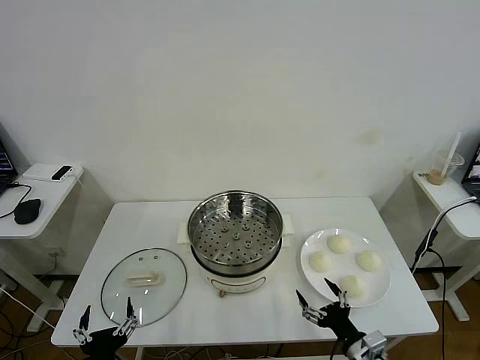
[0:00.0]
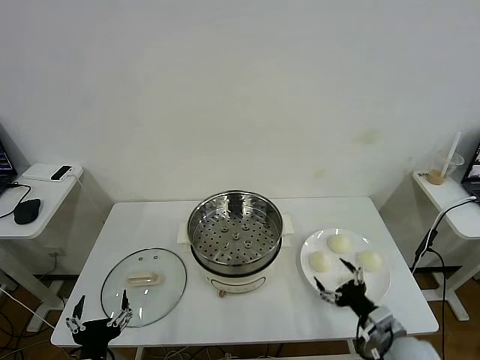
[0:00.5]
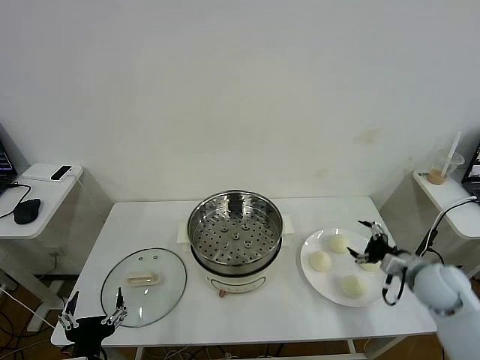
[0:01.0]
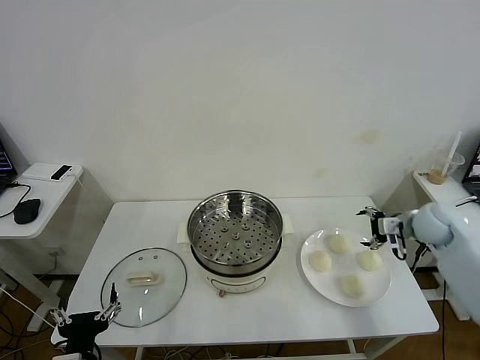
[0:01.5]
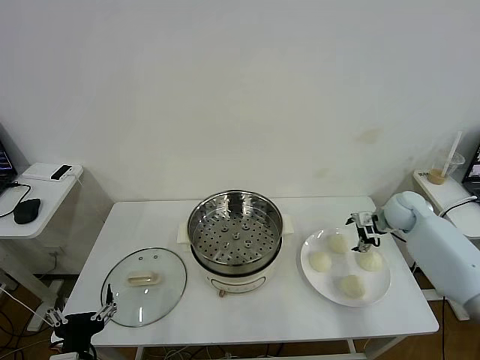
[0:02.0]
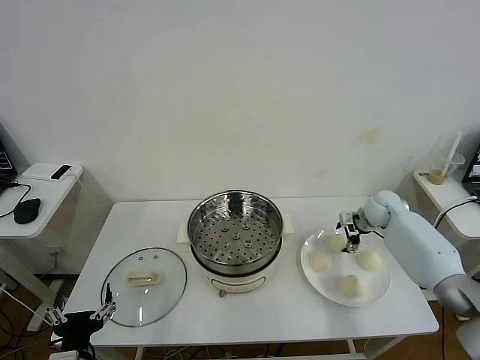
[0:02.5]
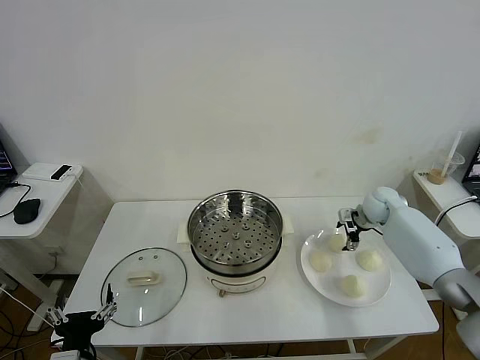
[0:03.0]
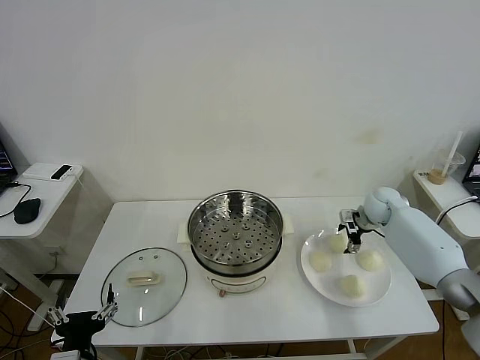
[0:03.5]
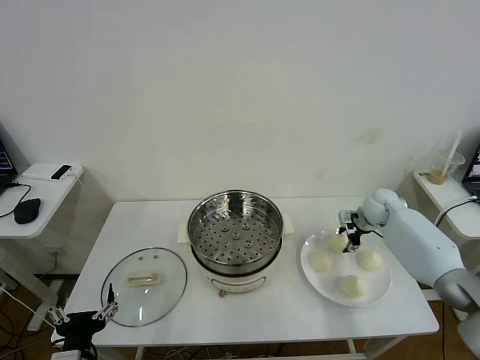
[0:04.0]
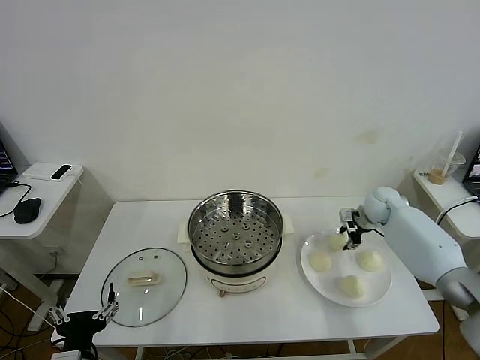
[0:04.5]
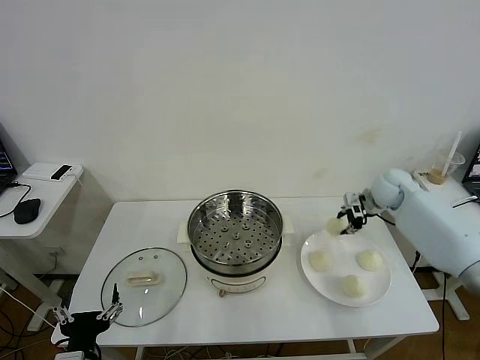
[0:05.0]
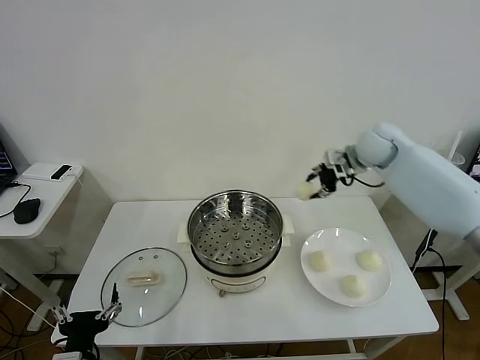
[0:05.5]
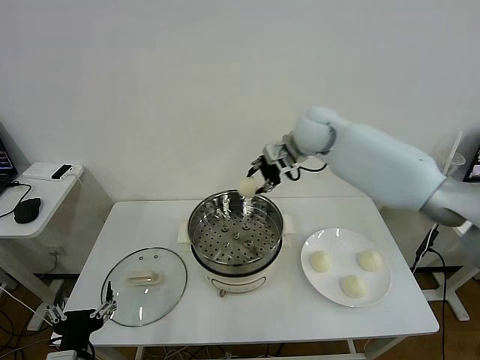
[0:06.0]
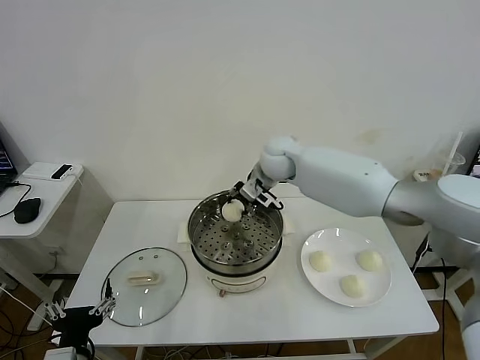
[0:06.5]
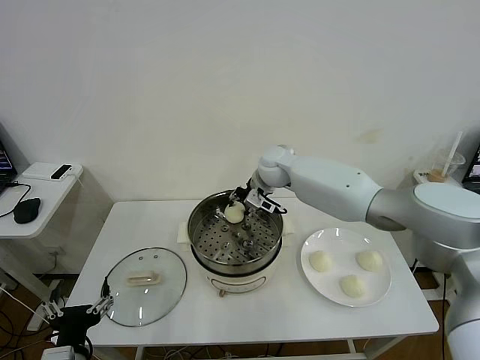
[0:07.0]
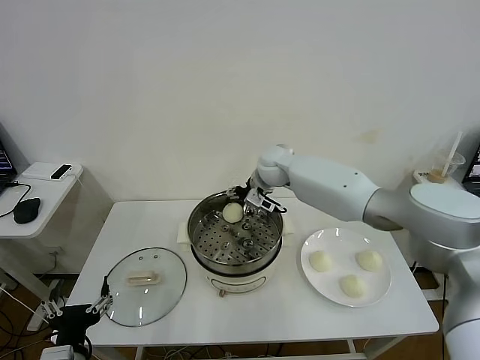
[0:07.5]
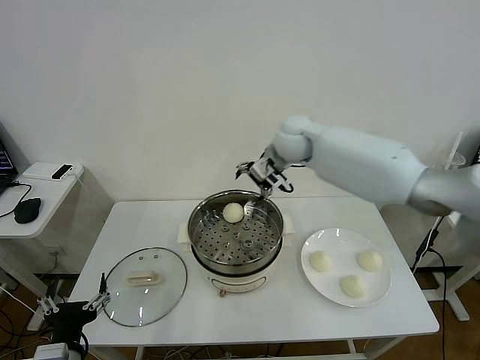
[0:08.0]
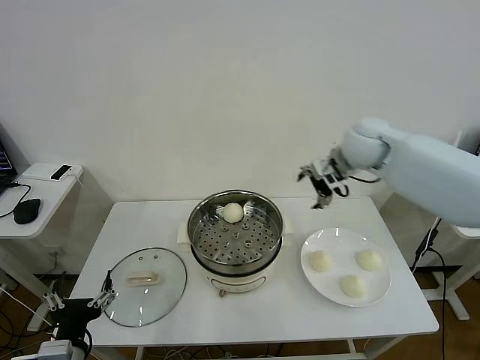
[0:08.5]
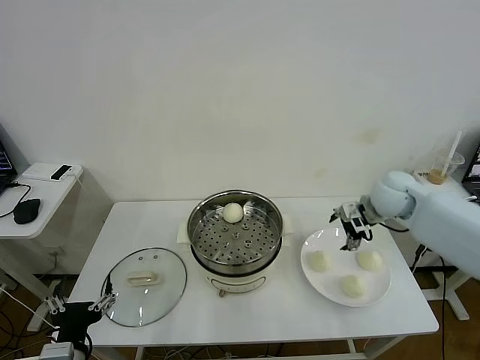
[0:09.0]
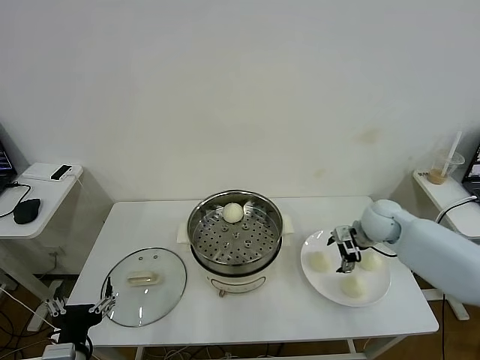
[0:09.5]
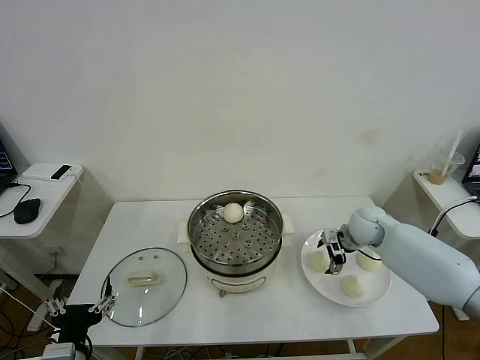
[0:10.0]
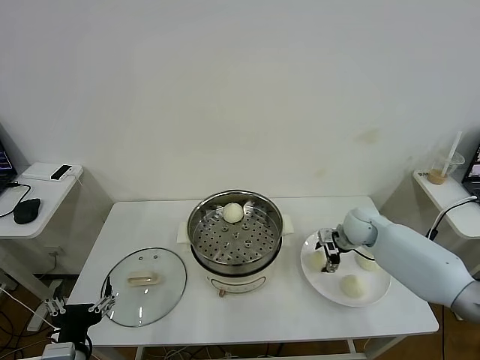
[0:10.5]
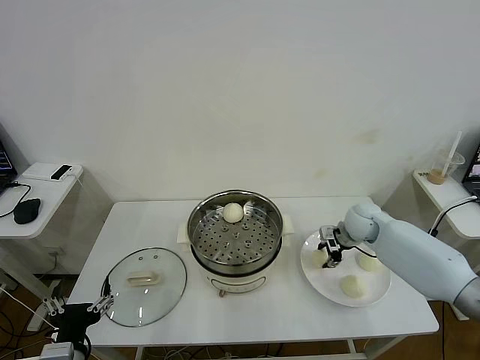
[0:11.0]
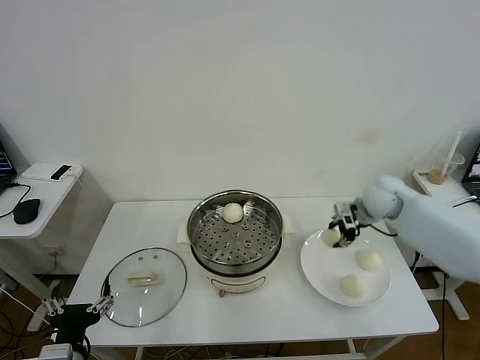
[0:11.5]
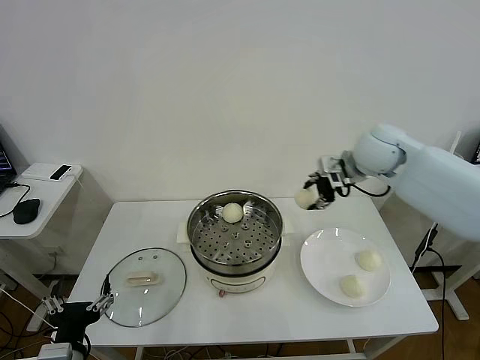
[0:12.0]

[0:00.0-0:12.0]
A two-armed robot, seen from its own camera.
Task of the whole recording: take steamed baozi put them in steamer then cover it.
Step, 0.0 to 4.0 s: Grasp the baozi in the plate with right gripper.
Step, 4.5 to 7.5 s: Place the baozi on the steamer with right gripper.
Step, 8.0 to 10.5 s: Grasp the baozi in the plate with right gripper.
2.0 to 4.0 s: The right gripper closes.
4.0 to 6.0 s: The right gripper is displaced to the left and upward by roughly 35 cm, and closes.
6.0 to 8.0 s: The right gripper travels downward and back again, roughly 10 cm each way, and opens.
8.0 to 10.0 s: The right gripper goes some 30 cm downward and to the right.
10.0 to 12.0 s: The right gripper heads upward, covering roughly 25 cm, and closes.

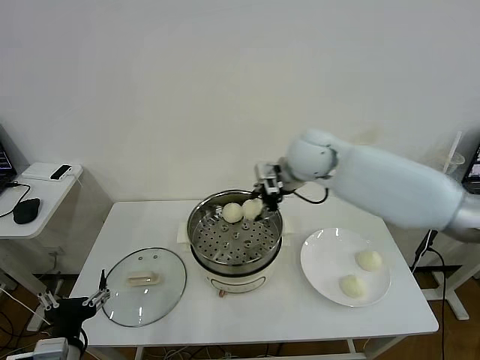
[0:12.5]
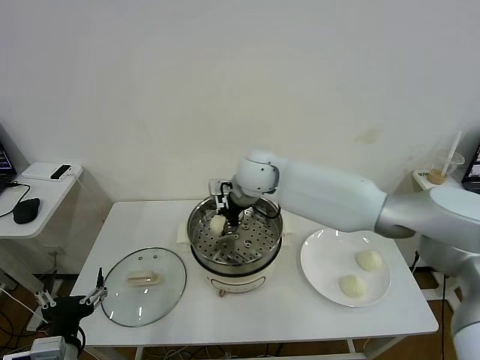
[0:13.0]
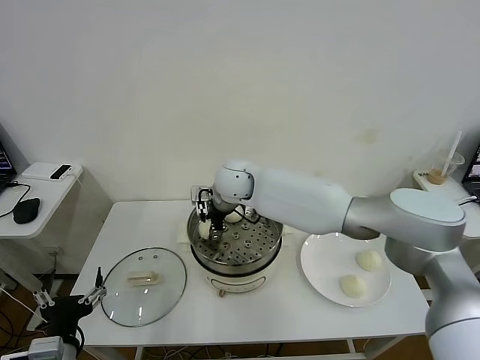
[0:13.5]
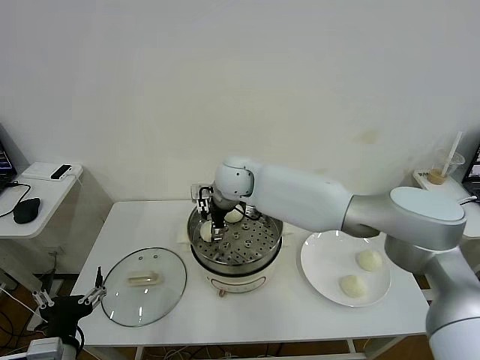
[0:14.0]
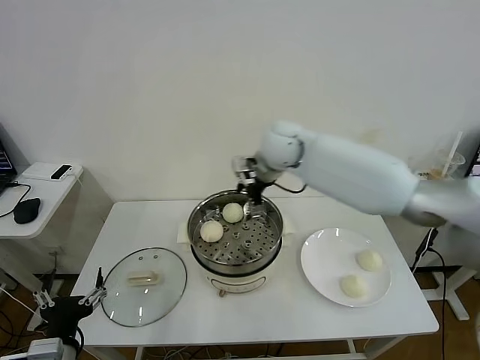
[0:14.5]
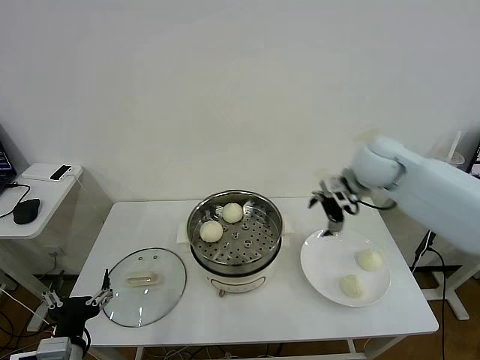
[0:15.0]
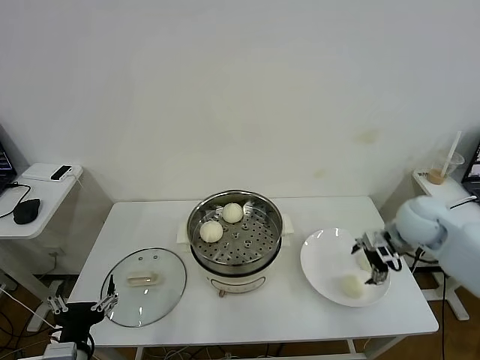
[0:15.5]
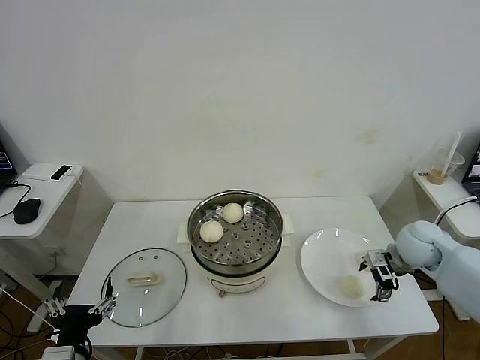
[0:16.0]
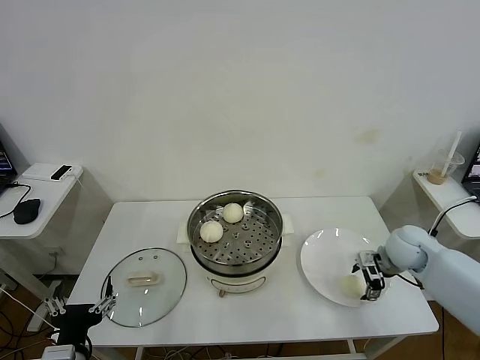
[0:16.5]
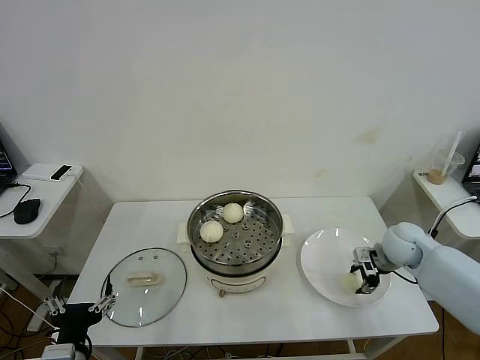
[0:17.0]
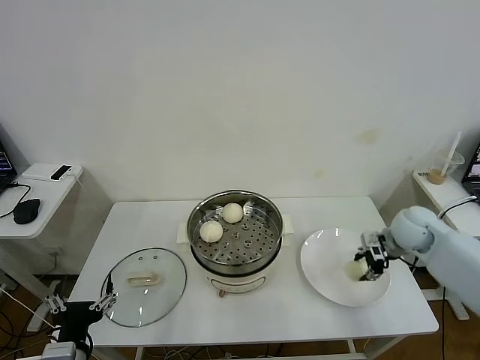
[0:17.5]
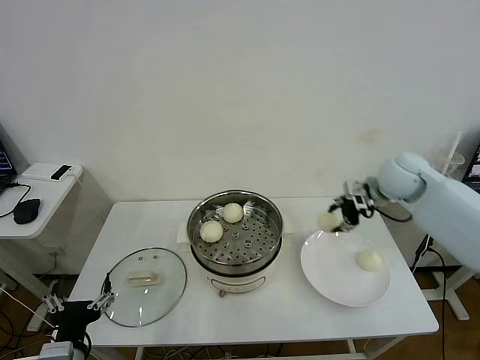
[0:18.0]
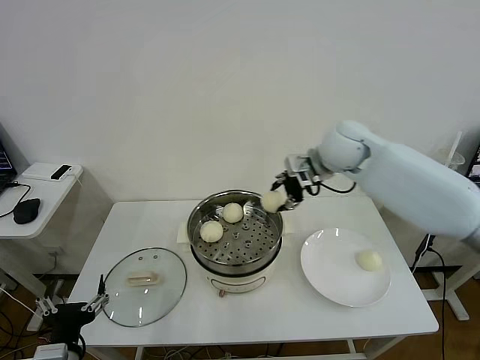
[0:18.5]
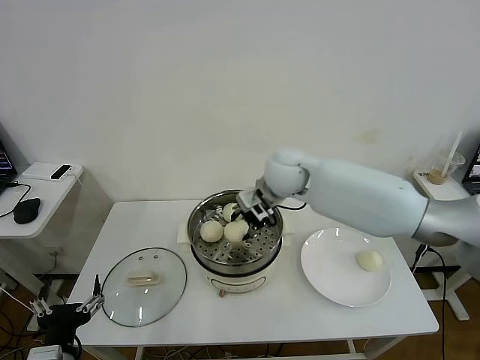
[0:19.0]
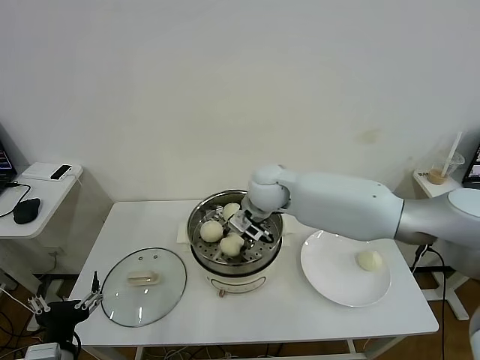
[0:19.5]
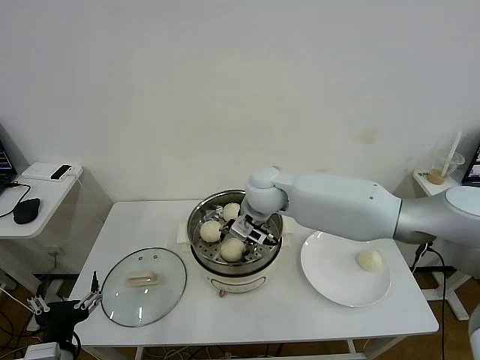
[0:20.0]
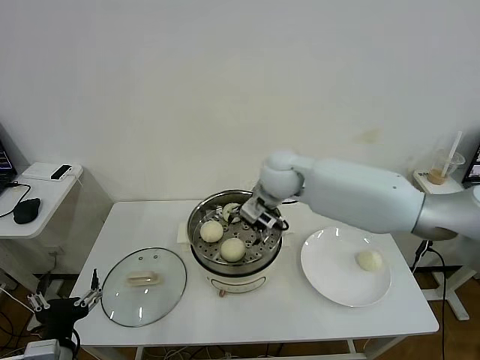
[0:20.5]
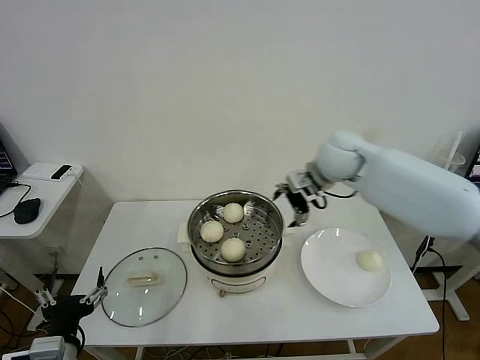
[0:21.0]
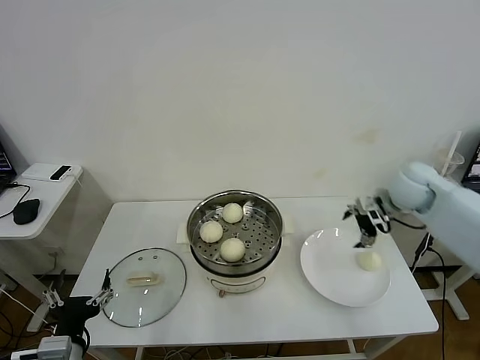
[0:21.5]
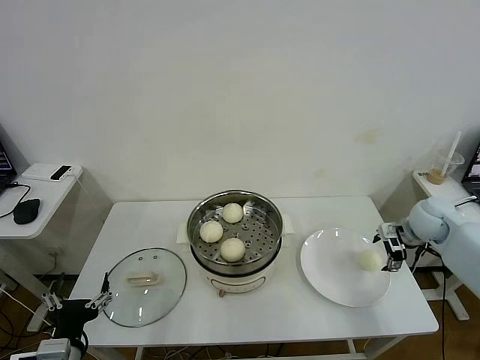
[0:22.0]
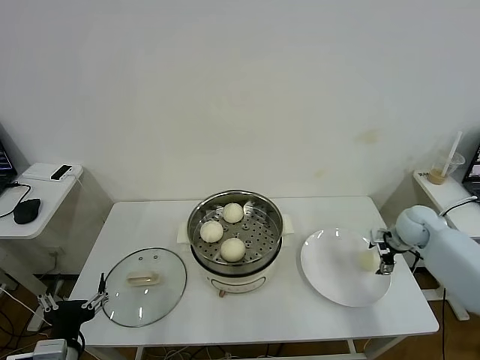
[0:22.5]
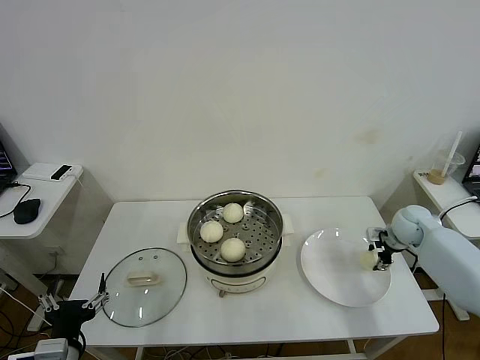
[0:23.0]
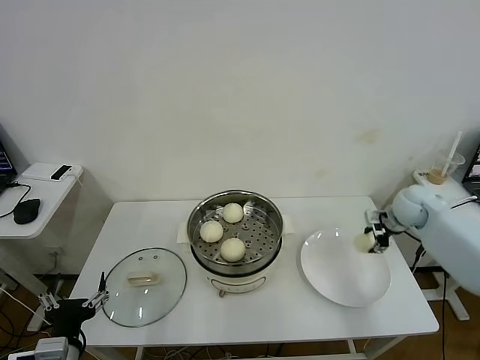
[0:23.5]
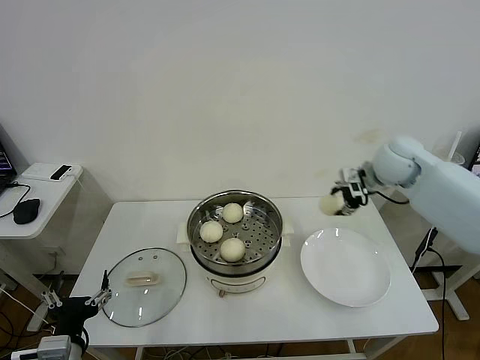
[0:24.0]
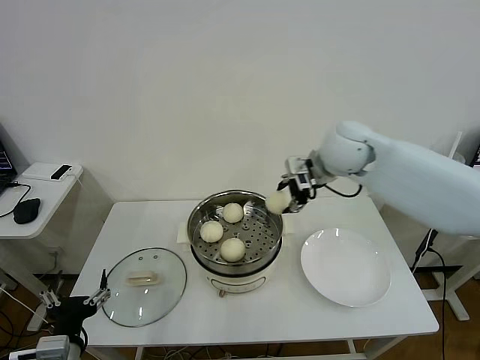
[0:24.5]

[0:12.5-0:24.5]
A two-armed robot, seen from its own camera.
Task of the whole recording: take steamed baozi put them in steamer then cover it.
Step, 14.5 to 17.0 s: Grasp the baozi in the plate with right gripper.
Step, 17.5 to 20.0 s: Place the baozi on the steamer with right gripper.
Step, 20.5 to 23.0 s: Grasp the baozi in the plate with right gripper.
12.5 to 14.5 s: The right gripper goes to the left and returns, approximately 15 cm each way, and opens up.
14.5 to 16.5 s: The right gripper travels to the right, downward and backward by roughly 35 cm.
16.5 to 18.5 s: The right gripper heads upward, to the left and forward, covering roughly 30 cm, and closes.
18.5 to 20.5 s: The right gripper goes about 10 cm to the left and downward, and opens up.
20.5 to 22.5 s: The right gripper goes approximately 40 cm to the right and downward.
22.5 to 24.5 s: The right gripper goes about 35 cm to the left and upward, and closes its fingers.

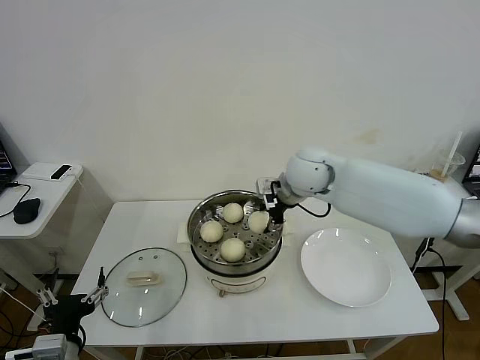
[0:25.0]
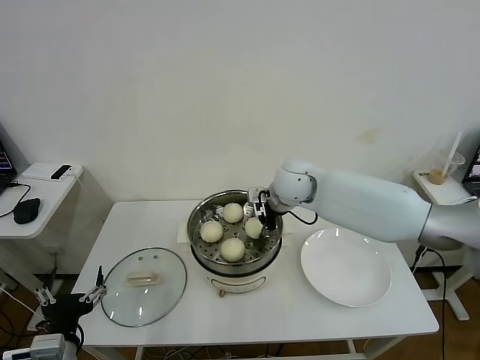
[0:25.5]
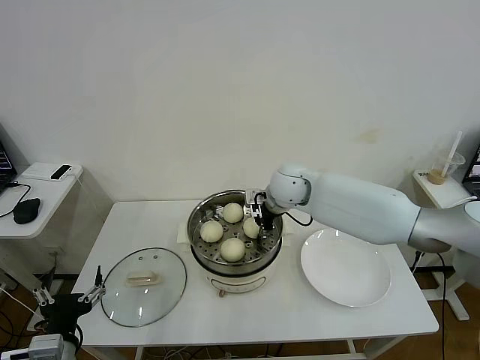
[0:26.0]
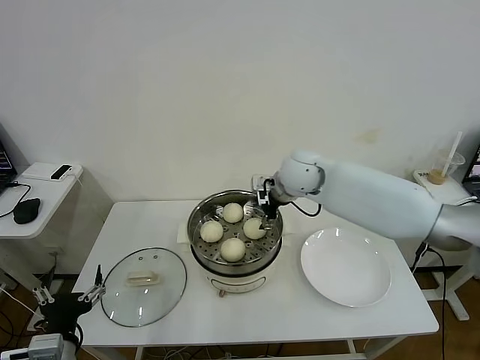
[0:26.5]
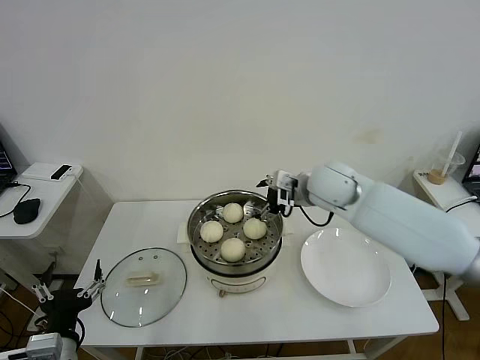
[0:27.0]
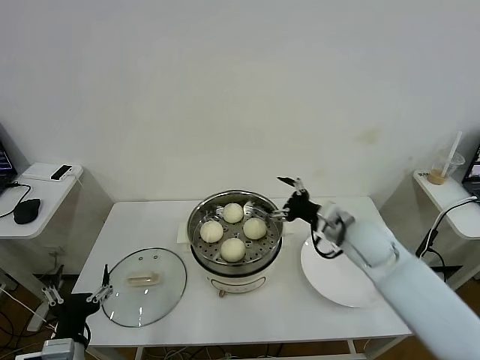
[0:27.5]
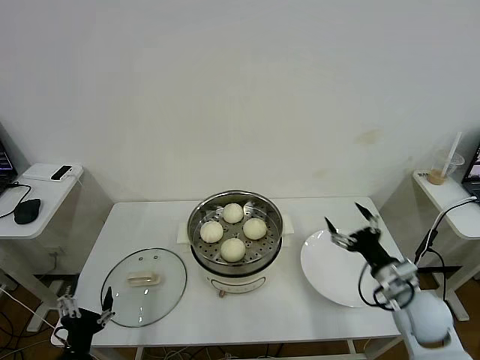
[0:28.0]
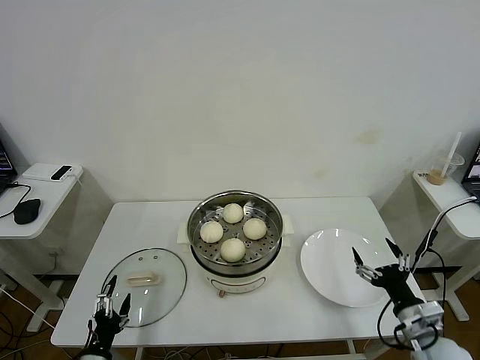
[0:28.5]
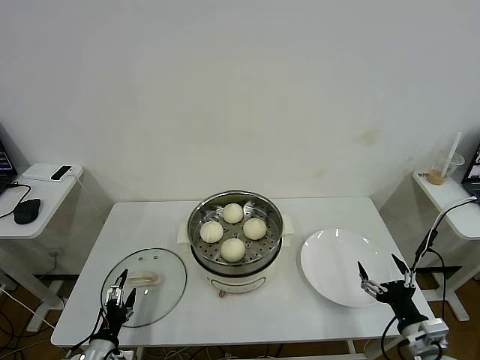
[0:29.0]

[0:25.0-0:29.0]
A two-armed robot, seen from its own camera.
Task of the whole recording: take steamed baozi put them in steamer then cover it.
25.0 to 27.0 s: The right gripper ends up approximately 5 cm from where it was, and opens.
27.0 to 29.0 s: The left gripper moves downward, some 15 cm. Meanwhile the right gripper travels backward, downward and to the right by roughly 40 cm.
